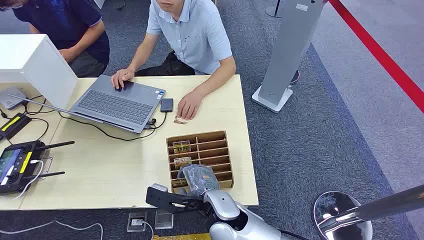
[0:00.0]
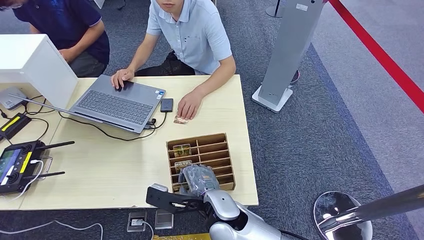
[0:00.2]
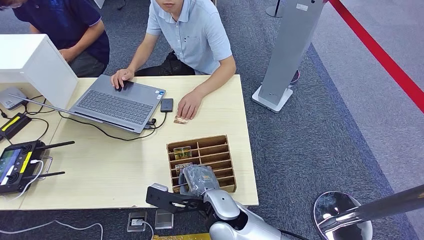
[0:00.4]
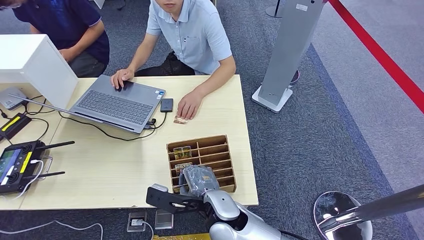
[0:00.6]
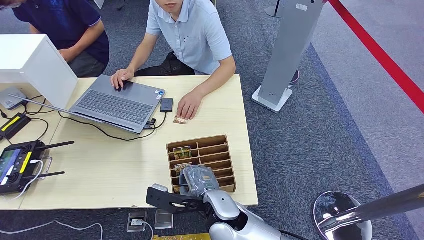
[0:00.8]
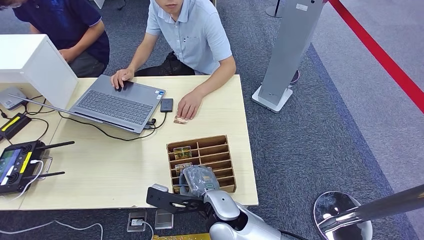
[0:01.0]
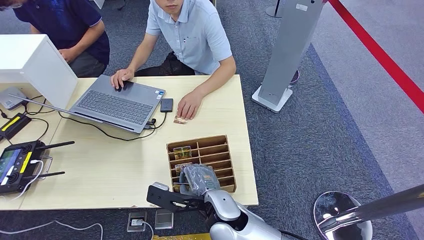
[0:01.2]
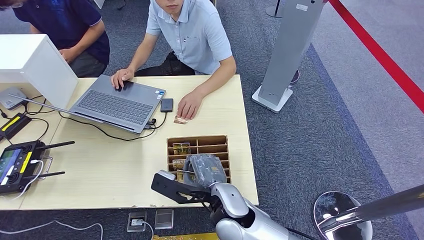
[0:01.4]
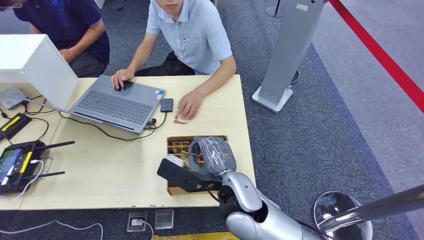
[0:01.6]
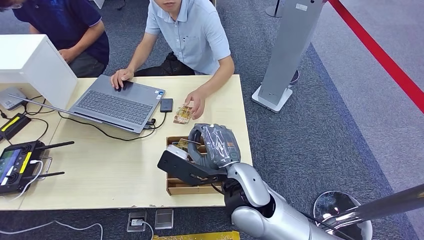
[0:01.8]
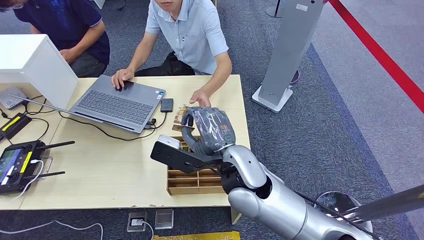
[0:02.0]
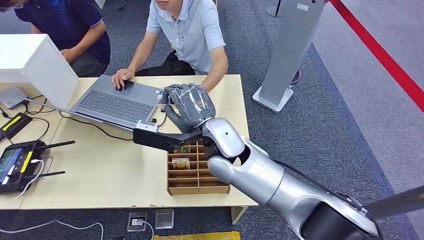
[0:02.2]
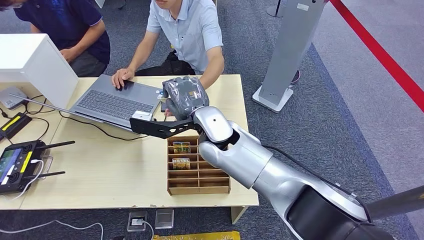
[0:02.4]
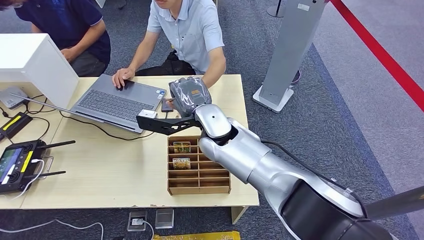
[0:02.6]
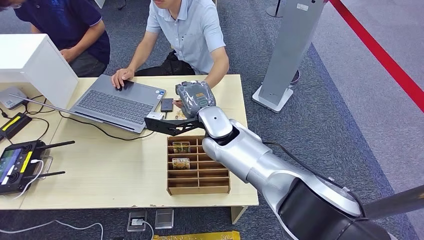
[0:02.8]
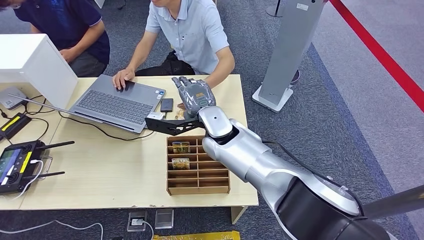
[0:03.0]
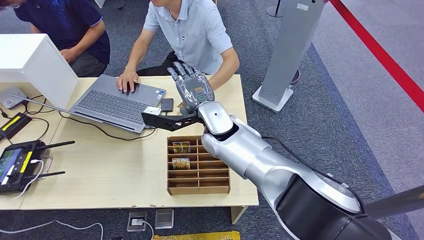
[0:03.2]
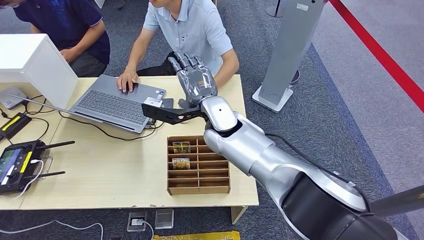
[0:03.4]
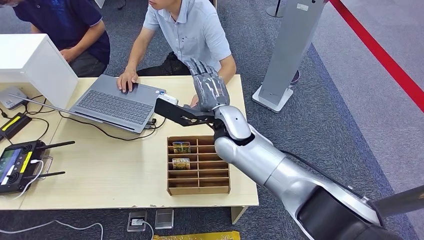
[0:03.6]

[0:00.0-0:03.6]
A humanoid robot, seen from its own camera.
Step, 0:00.0 to 0:01.6: Pick up the room card from the card holder.
Step, 0:02.0 to 0:03.6: Hand the room card to the target.
0:01.8 to 0:03.6: The right hand goes some 15 cm forward.
